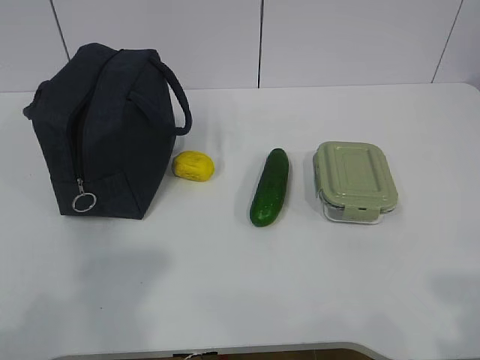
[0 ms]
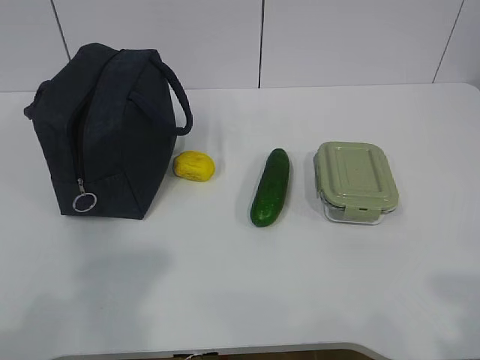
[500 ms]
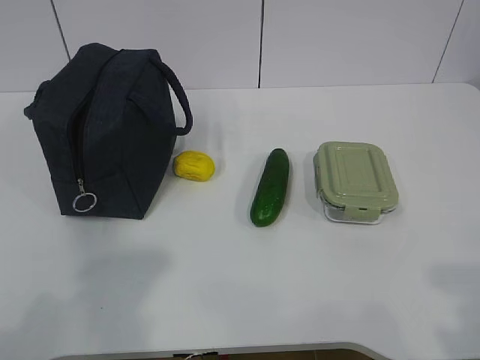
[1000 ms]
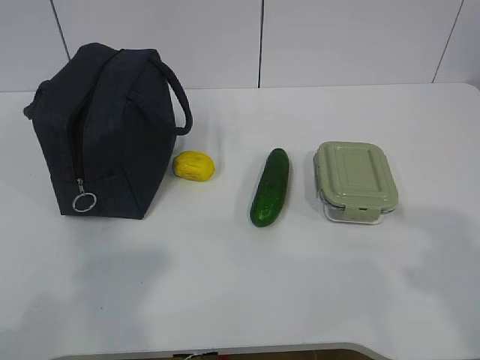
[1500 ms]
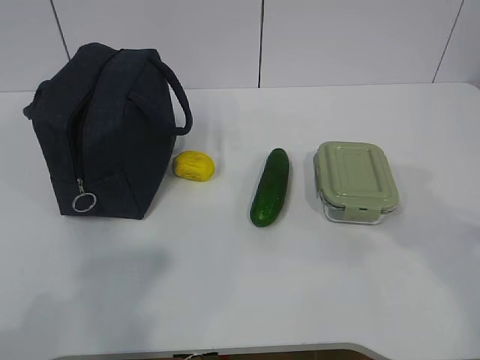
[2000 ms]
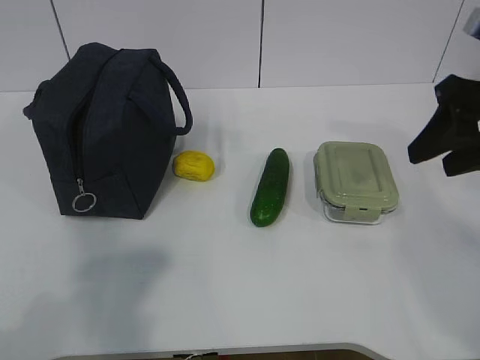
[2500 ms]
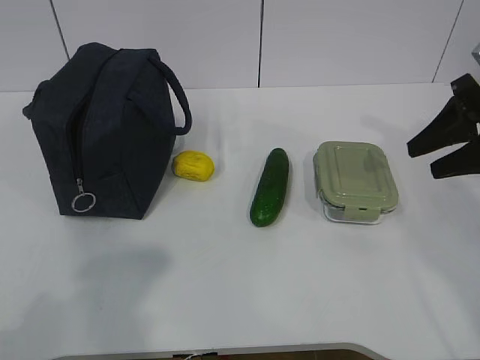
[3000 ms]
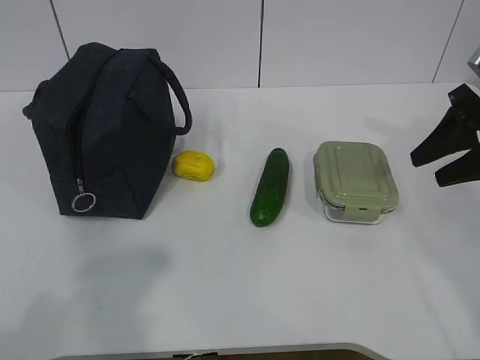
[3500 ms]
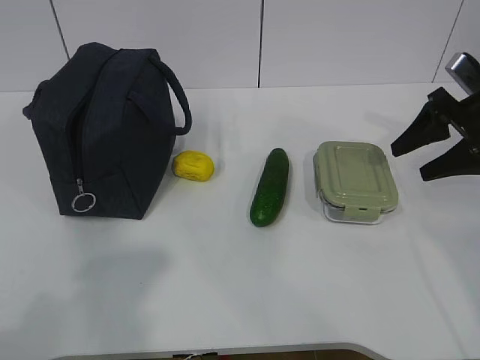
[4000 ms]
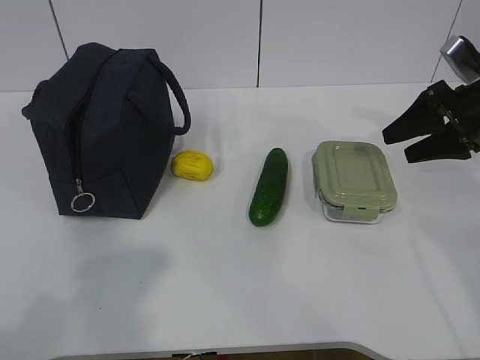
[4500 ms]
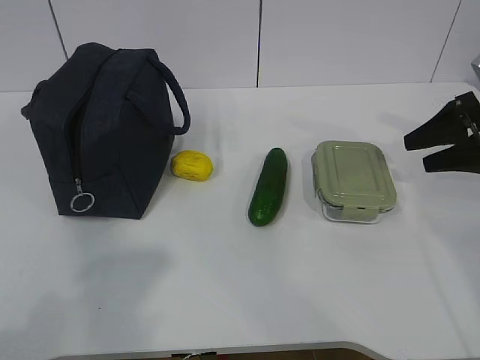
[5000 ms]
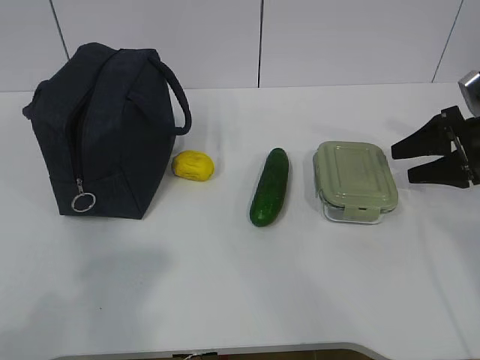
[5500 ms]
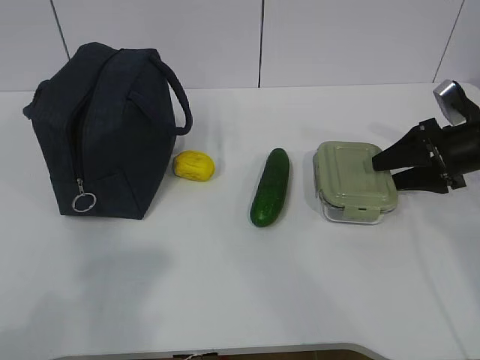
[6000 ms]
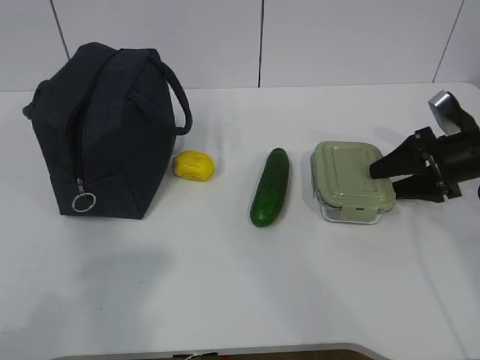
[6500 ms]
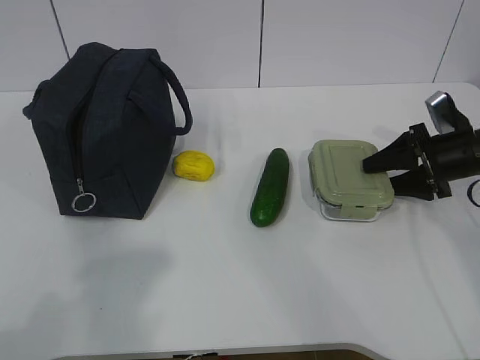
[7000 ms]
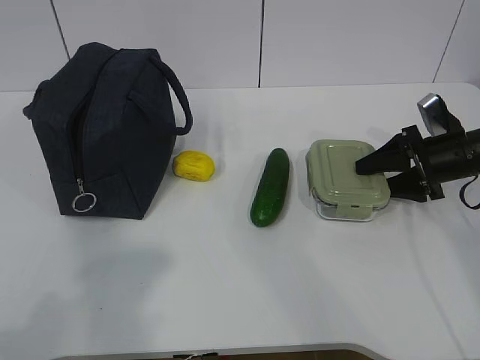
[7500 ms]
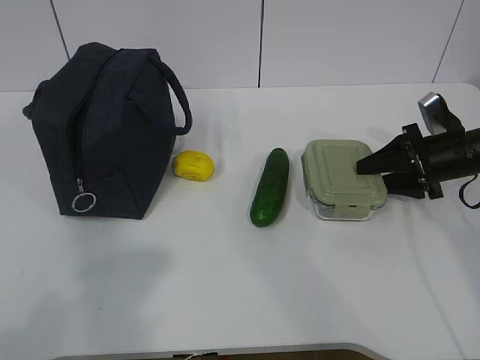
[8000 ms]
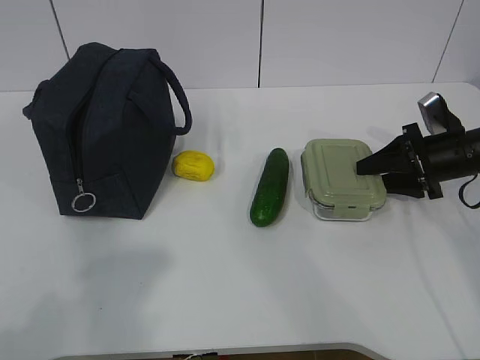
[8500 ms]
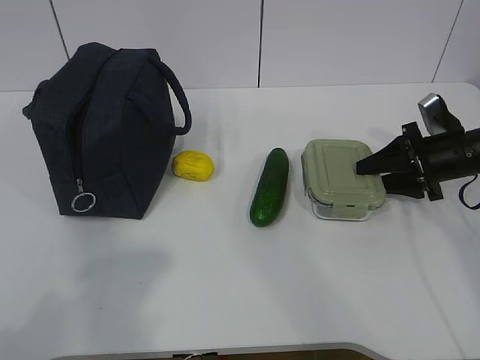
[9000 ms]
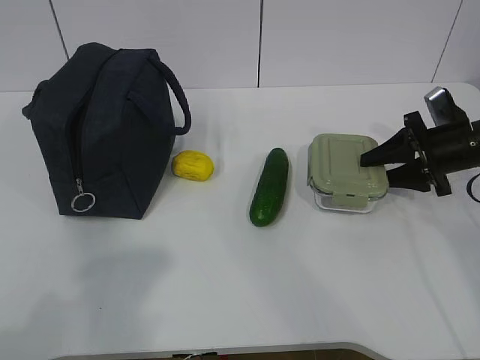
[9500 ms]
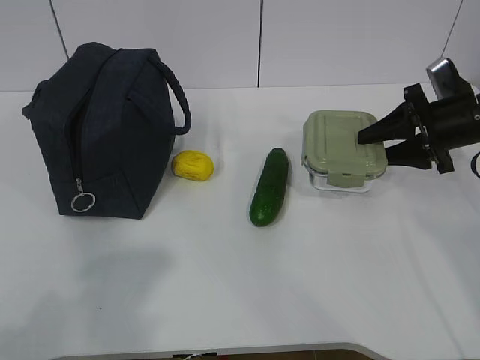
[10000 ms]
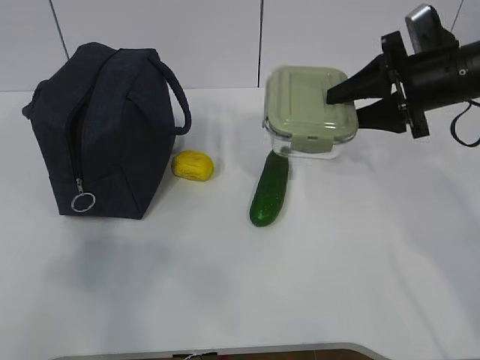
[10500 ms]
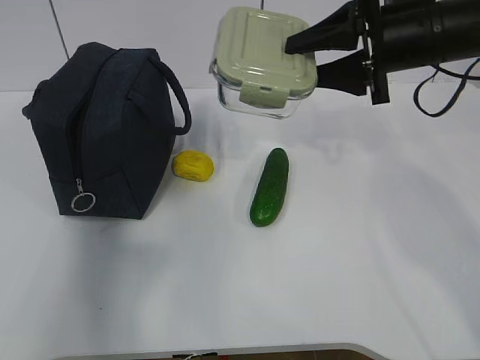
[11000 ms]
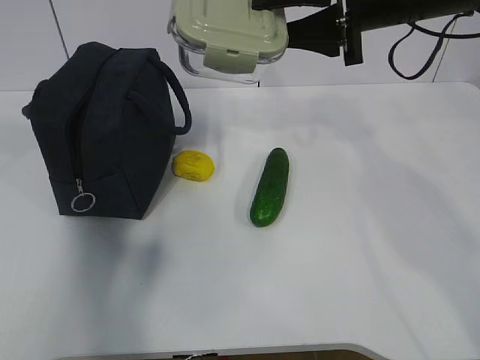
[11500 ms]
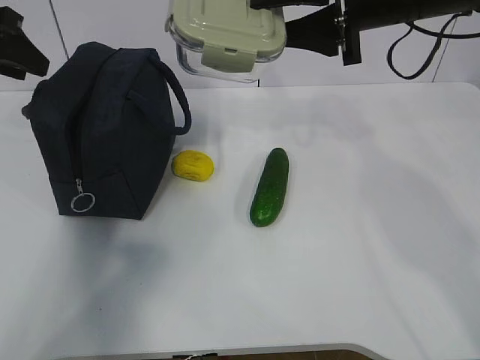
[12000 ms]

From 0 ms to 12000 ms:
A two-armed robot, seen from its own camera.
Step, from 0 ms to 7500 ms: Grab the lunch box with your right hand.
From 2000 ms to 4000 ms: The right gripper travels forward by some 20 cm.
From 4000 ms to 6000 ms: The right gripper moves downward, approximately 5 cm.
From 6000 ms to 8000 ms: The grippers make only small movements.
From 8000 ms to 10000 ms: The right gripper travels upward by some 5 cm.
From 10000 ms to 12000 ms: The right gripper goes roughly 20 cm upward and to the left. The left gripper is displaced forward by about 40 cm.

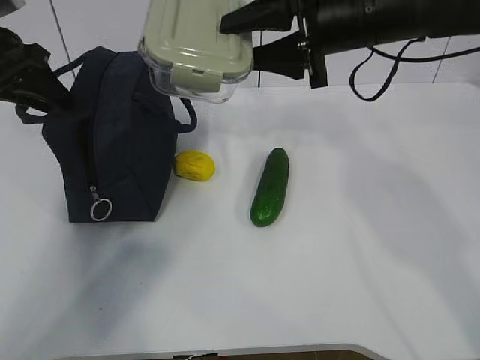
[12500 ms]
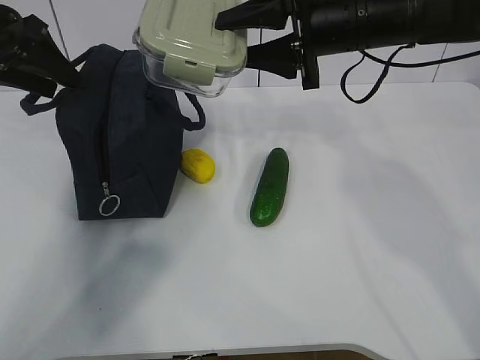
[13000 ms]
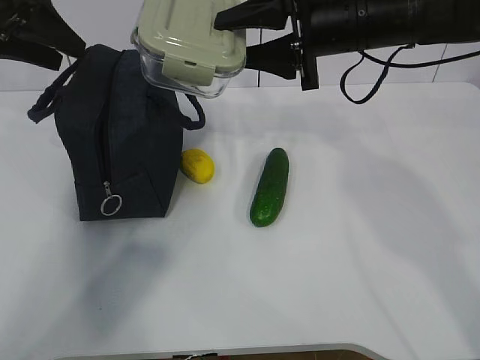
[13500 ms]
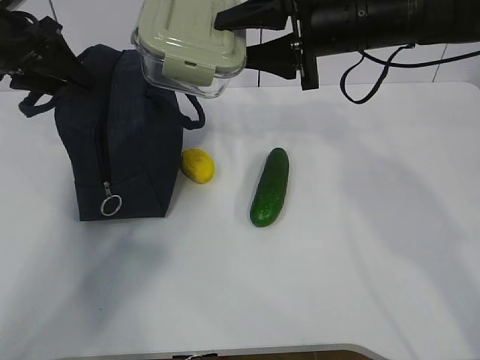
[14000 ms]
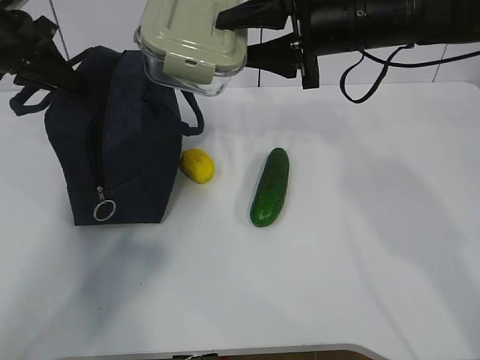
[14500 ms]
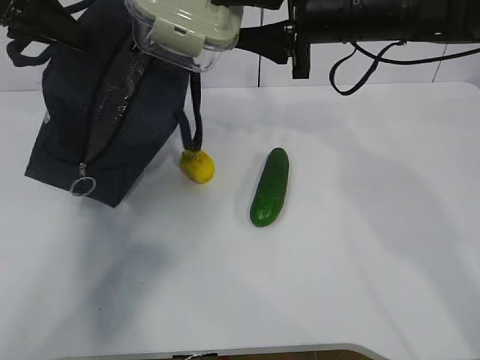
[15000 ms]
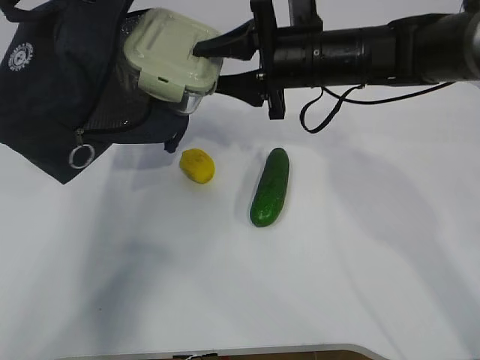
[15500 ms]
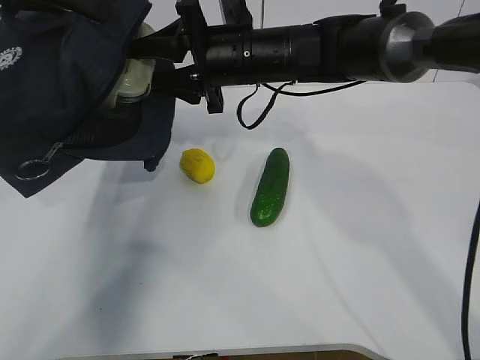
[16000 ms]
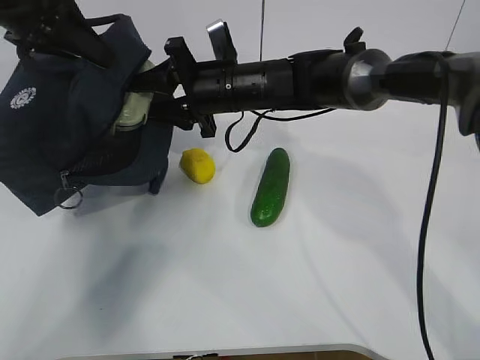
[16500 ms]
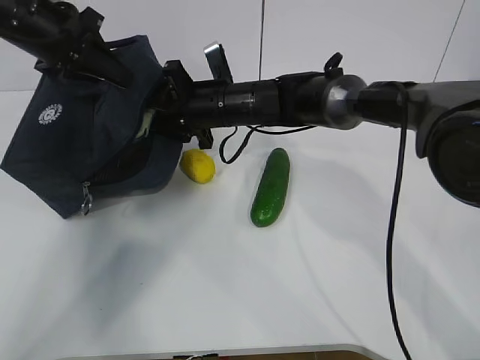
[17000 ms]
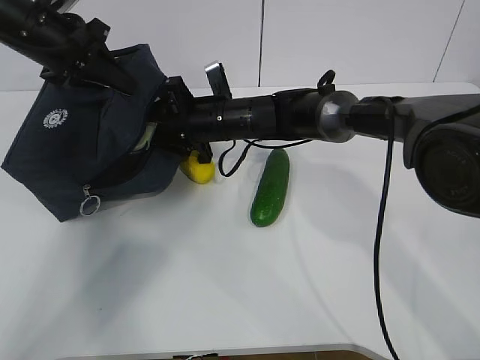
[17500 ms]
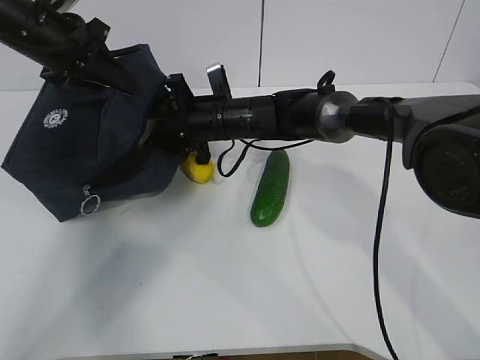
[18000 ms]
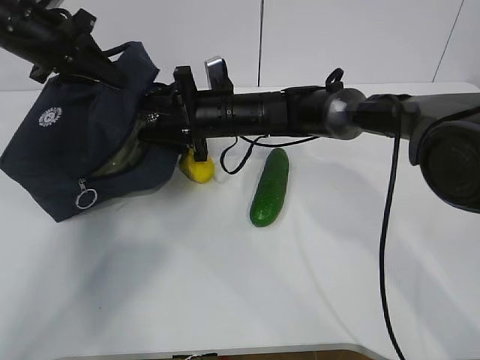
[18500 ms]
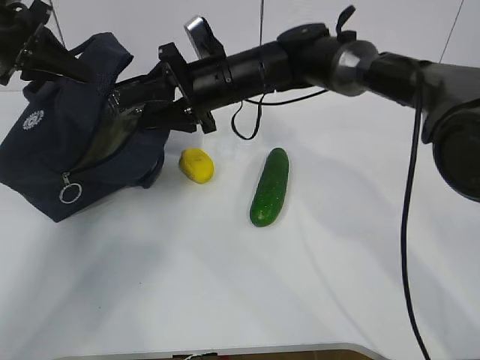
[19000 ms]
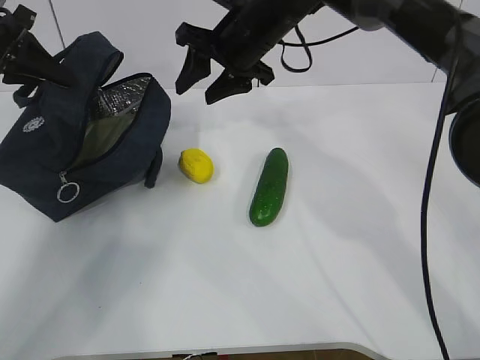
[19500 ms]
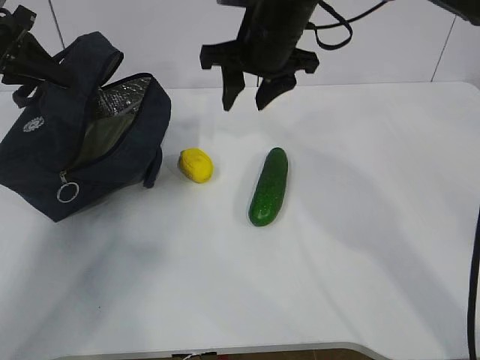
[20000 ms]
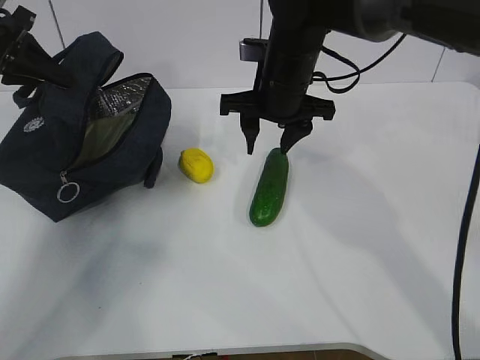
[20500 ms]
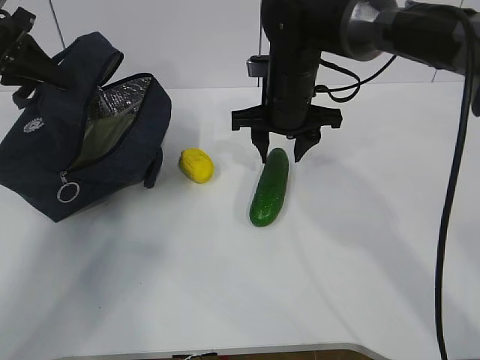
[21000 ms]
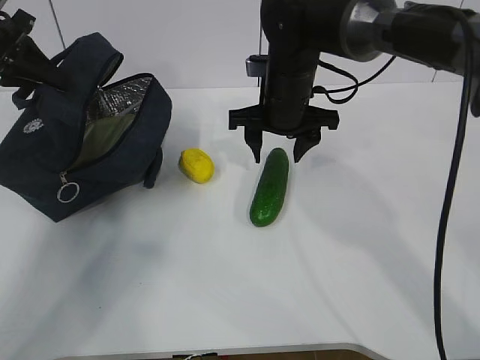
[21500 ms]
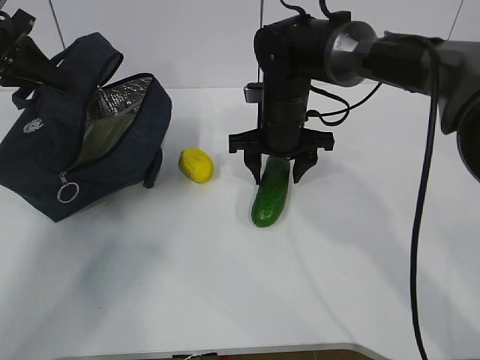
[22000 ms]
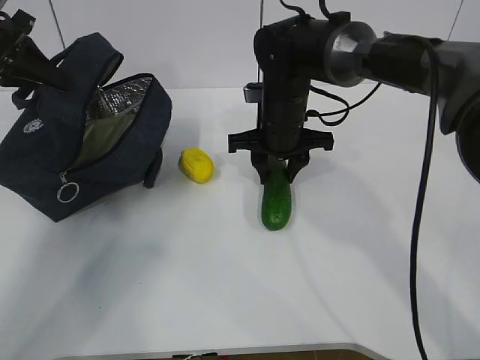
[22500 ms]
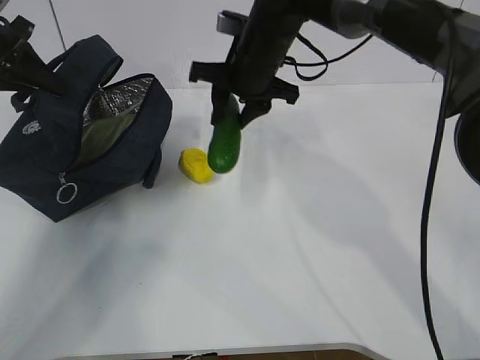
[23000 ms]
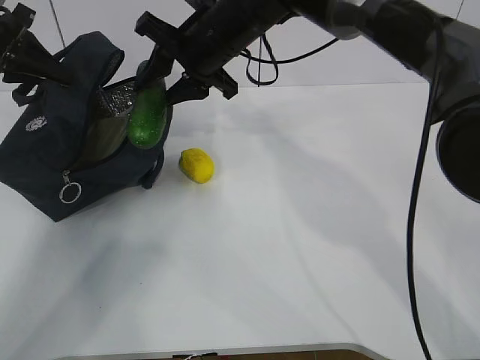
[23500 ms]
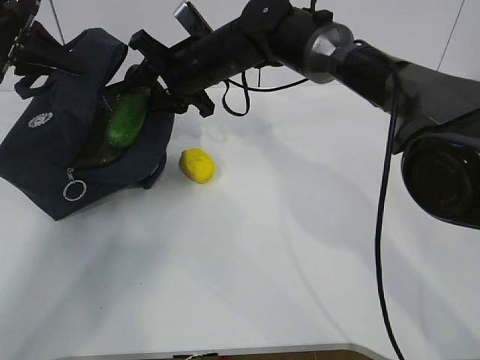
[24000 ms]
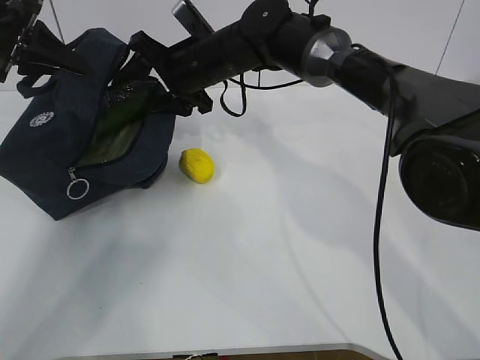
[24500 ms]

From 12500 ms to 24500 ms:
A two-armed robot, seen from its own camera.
Step, from 15500 ms to 18500 ms: Grab the cucumber with your right hand.
Step, from 19000 ms to 20500 ms: Place it into the bag with your right hand.
From 12500 ms to 14500 ms: The left gripper closes.
From 14500 ms to 16500 ms: The right gripper shifts about 15 cm to the left, downward and forward.
From 16500 ms to 18500 ms: The grippers both shift downward by roughly 5 cm.
From 18500 ms to 20500 ms: The right gripper heads upward and to the right, covering about 10 cm; the left gripper is displaced to the left by approximately 5 cm.
From 20500 ms to 22500 ms: The right gripper shifts roughly 5 cm downward.
From 22500 ms to 24500 ms: The right gripper heads to the left and upward, covering some 10 cm, and opens.

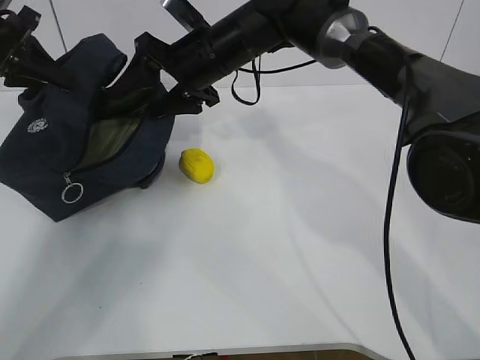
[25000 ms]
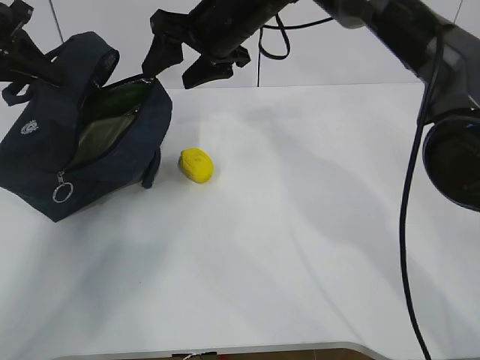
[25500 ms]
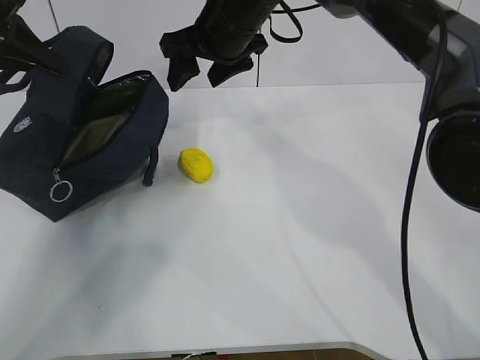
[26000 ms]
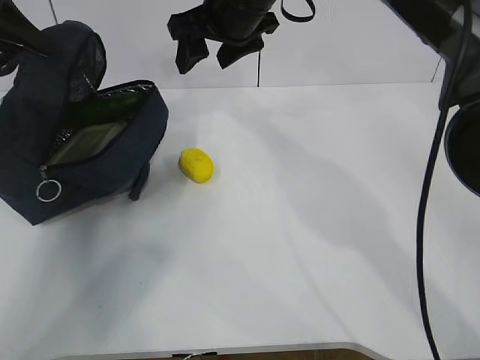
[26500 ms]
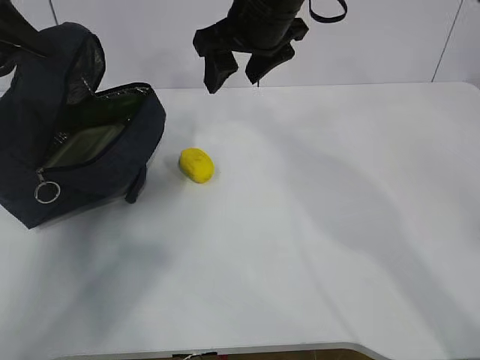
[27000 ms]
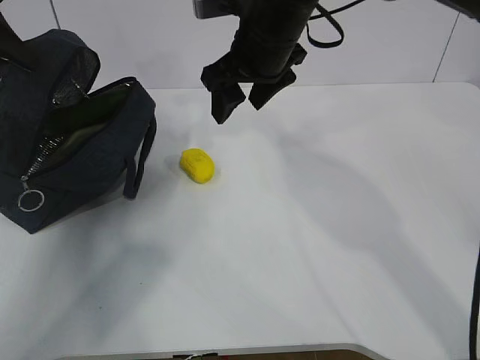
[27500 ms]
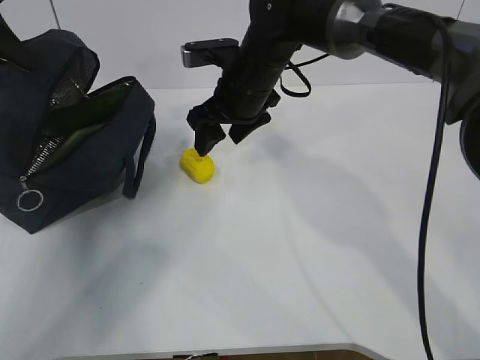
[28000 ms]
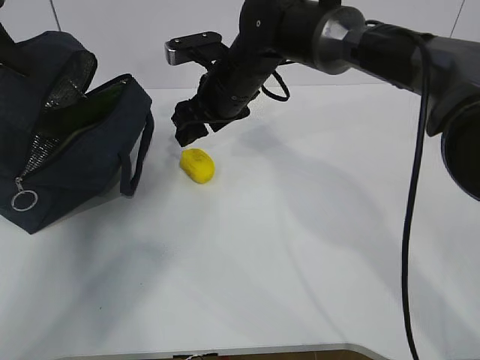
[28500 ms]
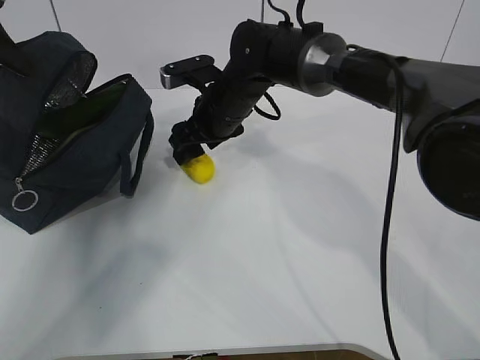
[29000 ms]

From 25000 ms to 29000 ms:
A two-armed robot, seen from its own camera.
Step, from 25500 ms to 27000 ms: Secure the lunch bag with your left hand.
Step, from 27500 ms to 28500 ms: Grab the lunch bag with your right hand.
From 25000 ms to 27000 ms: The left gripper shifts approximately 5 cm upward; the right gripper is displaced upward and to the right by roughly 10 cm.
From 27000 ms to 29000 ms: The right gripper heads downward, covering approximately 15 cm.
